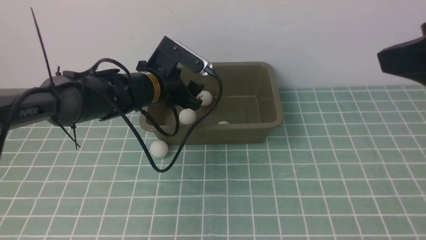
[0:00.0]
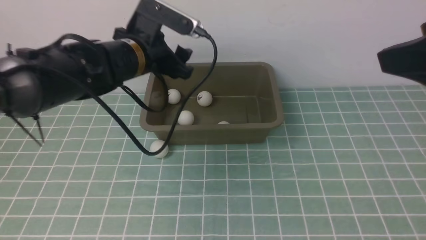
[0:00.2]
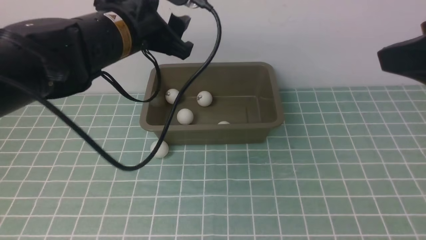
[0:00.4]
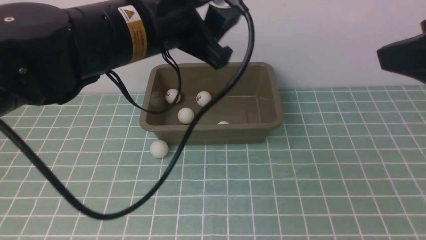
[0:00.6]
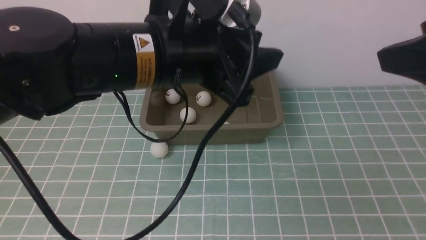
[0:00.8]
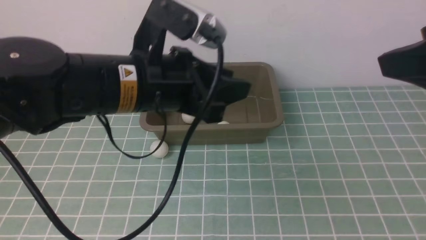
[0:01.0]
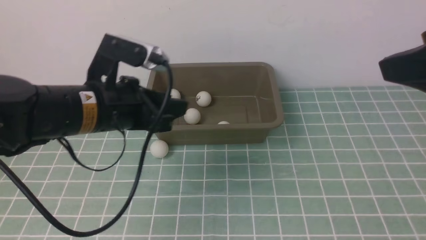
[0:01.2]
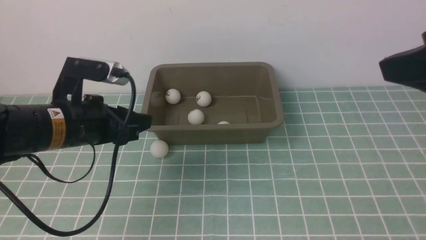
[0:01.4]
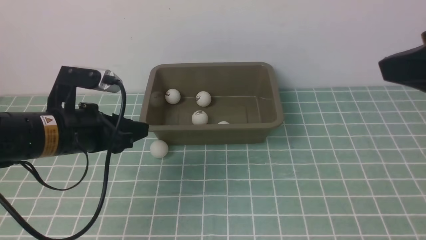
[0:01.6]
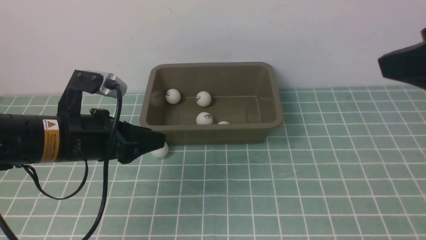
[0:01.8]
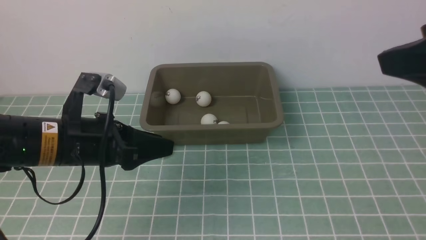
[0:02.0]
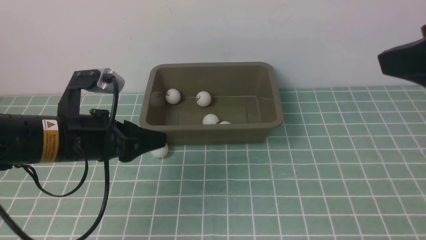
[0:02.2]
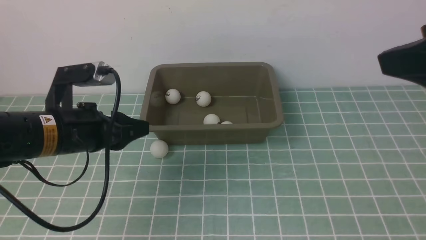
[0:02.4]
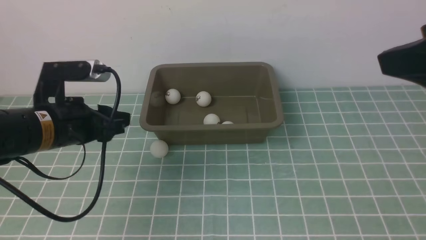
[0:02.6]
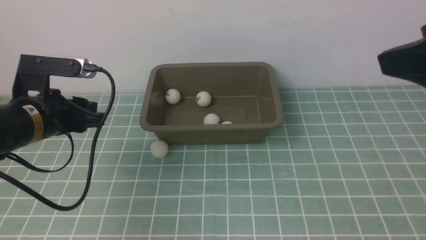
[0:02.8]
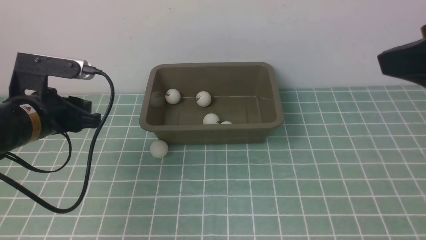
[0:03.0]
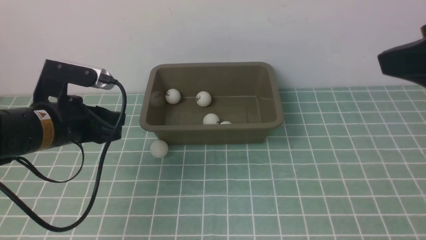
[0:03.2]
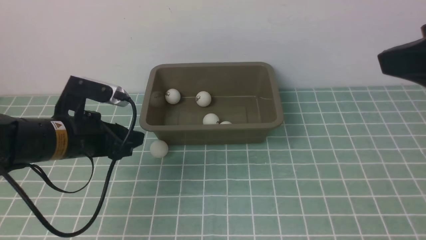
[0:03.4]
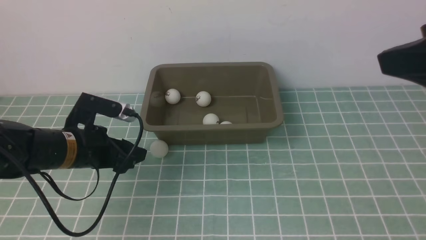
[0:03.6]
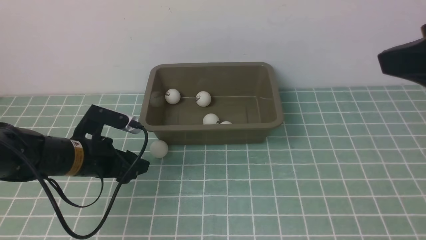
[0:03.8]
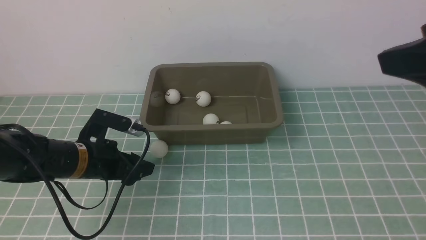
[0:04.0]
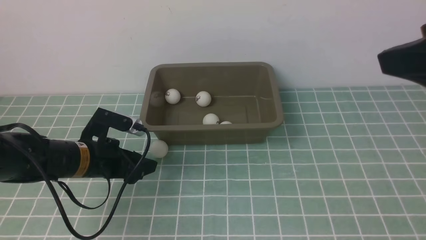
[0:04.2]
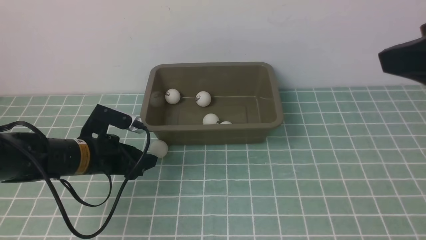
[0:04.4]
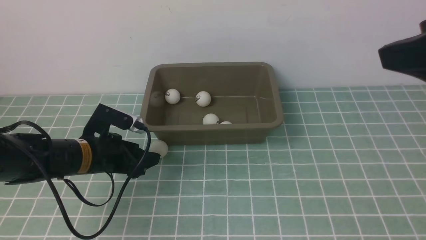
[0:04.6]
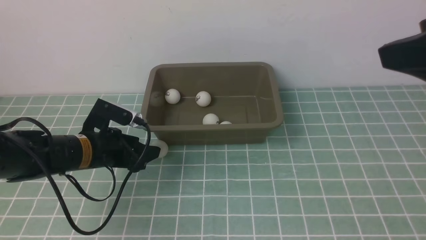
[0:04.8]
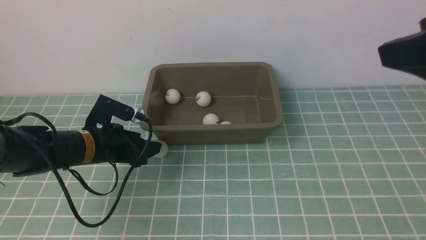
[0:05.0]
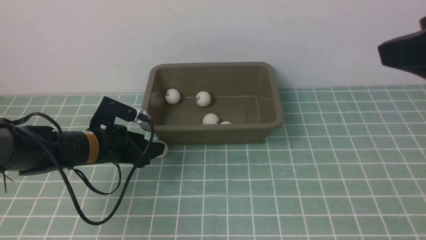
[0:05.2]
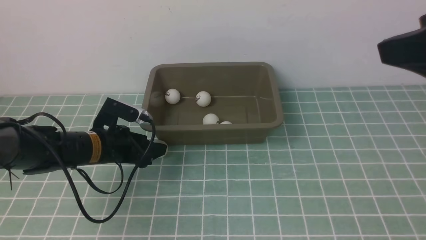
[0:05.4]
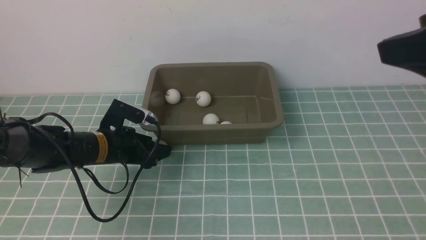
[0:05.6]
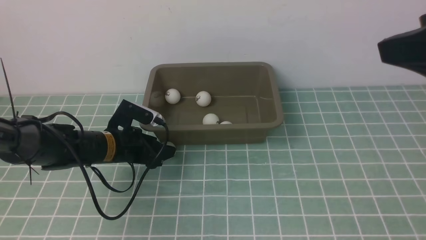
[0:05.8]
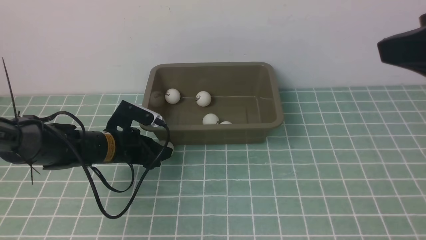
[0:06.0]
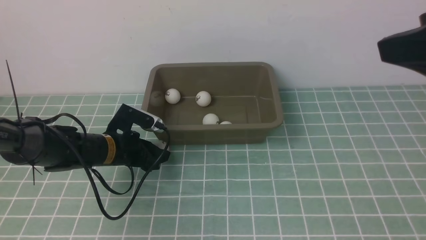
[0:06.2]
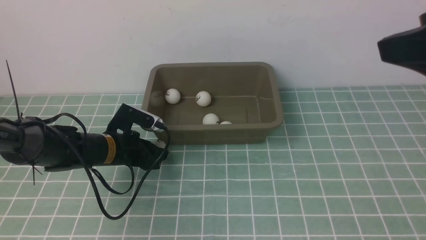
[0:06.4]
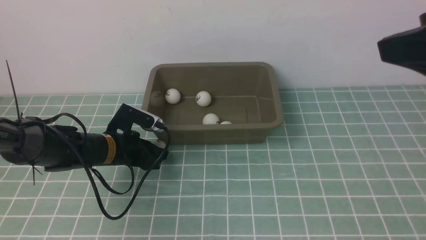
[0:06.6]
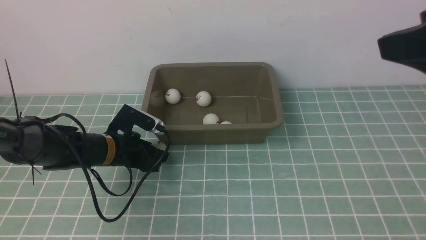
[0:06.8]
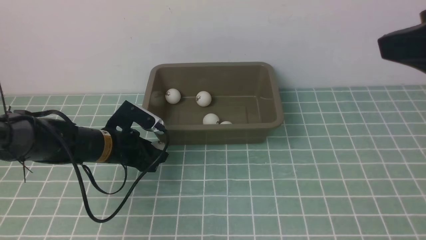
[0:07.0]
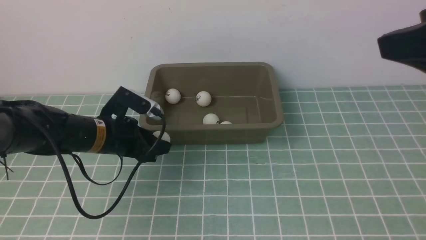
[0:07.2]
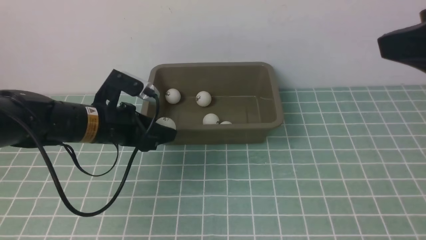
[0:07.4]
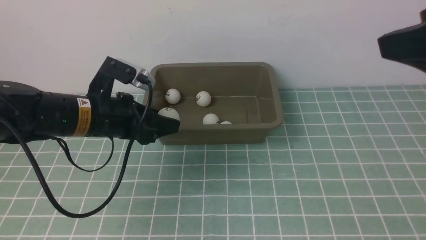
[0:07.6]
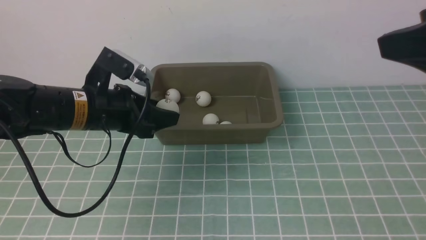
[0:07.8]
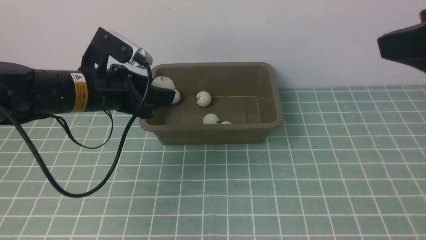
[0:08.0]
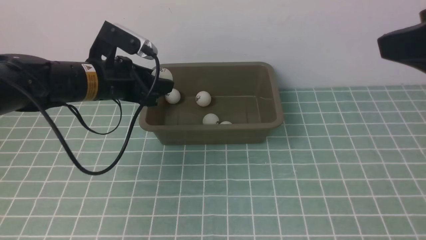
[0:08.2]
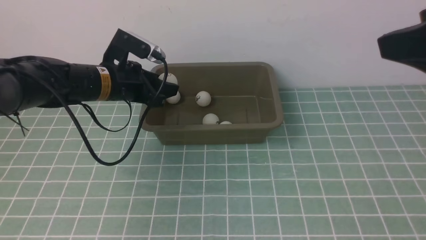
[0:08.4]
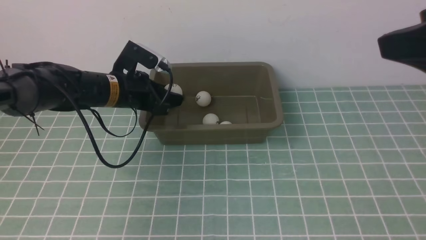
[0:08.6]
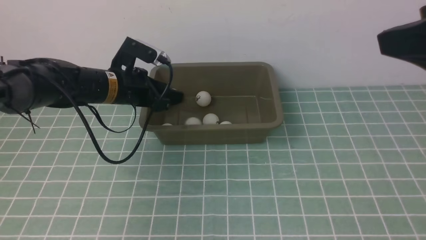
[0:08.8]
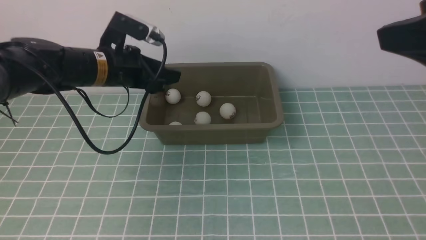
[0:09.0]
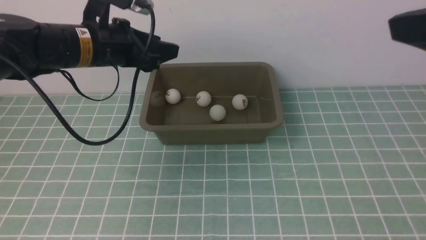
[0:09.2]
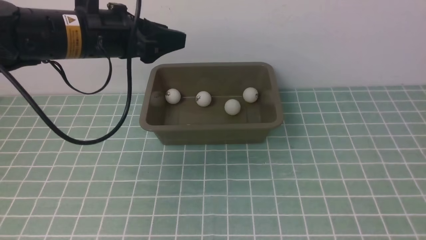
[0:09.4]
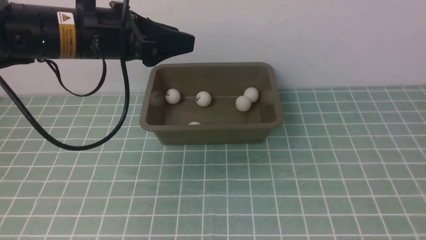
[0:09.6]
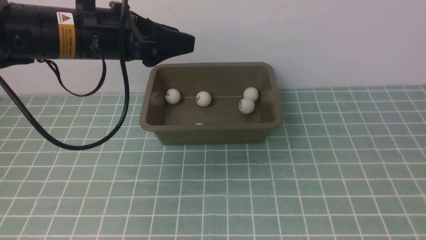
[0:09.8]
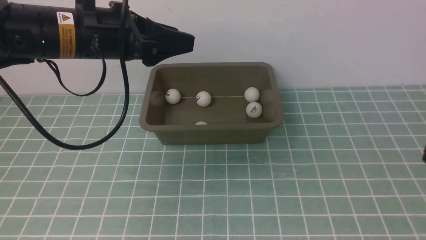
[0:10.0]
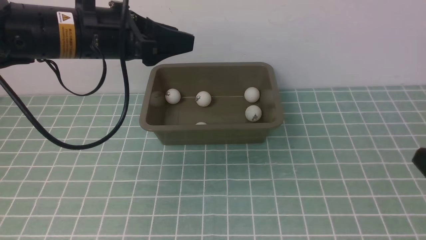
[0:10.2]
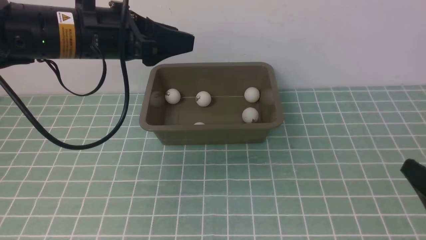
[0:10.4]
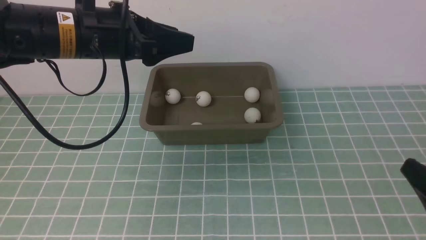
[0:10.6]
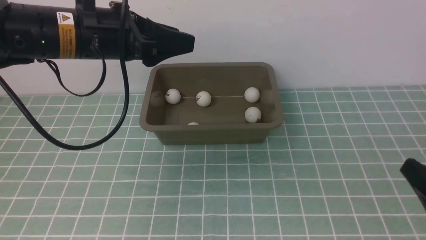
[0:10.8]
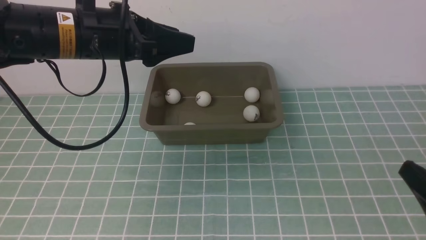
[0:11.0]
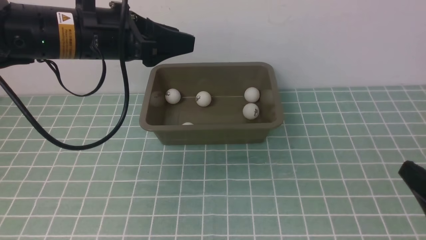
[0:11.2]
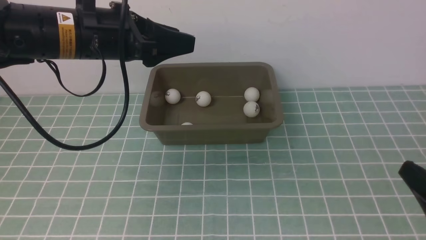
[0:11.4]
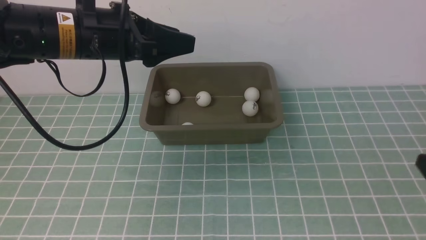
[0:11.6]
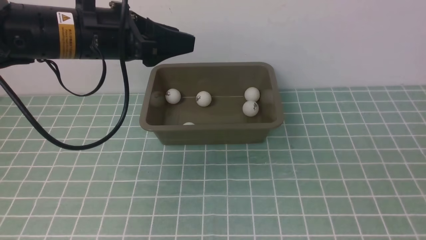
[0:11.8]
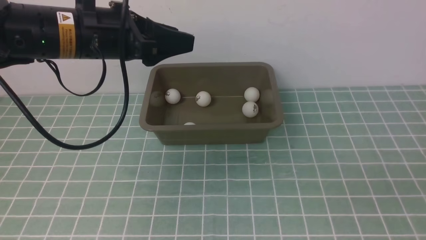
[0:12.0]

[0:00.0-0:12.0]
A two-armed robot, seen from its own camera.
Step, 0:00.2 to 0:07.0: use the left arm to clamp the table tennis ball closest to it.
Step, 0:07.4 to 0:09.0: use the left arm to put the table tennis ball into the box.
0:00.0 to 0:01.6: The left gripper travels backward and to the left by approximately 15 cm, and closes.
0:03.0 to 0:04.4: The left gripper goes about 10 cm downward, and opens its fingers.
0:04.4 to 0:06.0: The left gripper moves forward, roughly 5 cm.
0:06.0 to 0:07.6: The left gripper heads upward, covering roughly 15 cm, and closes.
0:07.6 to 0:09.0: The left gripper travels upward and forward by roughly 10 cm.
0:09.0 to 0:10.4: The left gripper shifts by approximately 5 cm, while the right gripper travels downward by about 20 cm.
0:10.4 to 0:12.0: The right gripper goes roughly 5 cm downward.

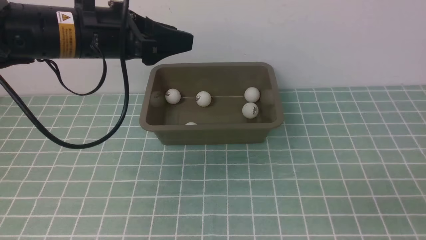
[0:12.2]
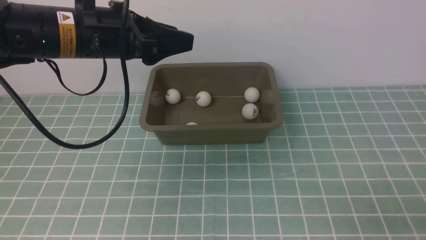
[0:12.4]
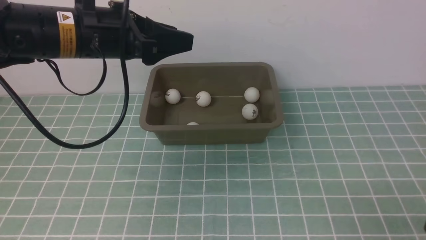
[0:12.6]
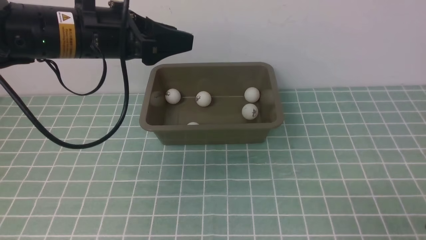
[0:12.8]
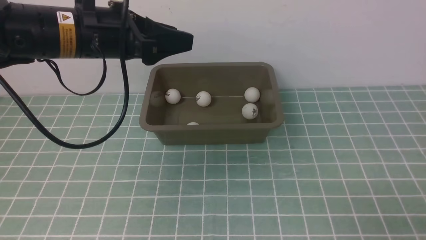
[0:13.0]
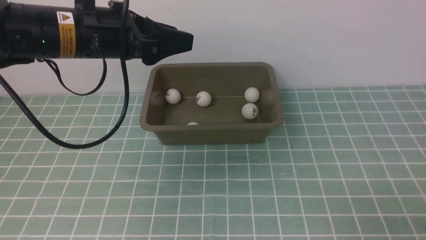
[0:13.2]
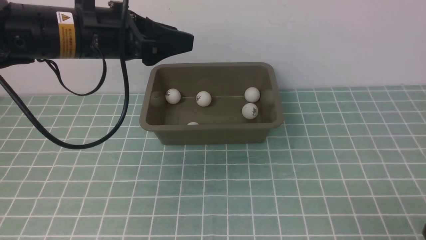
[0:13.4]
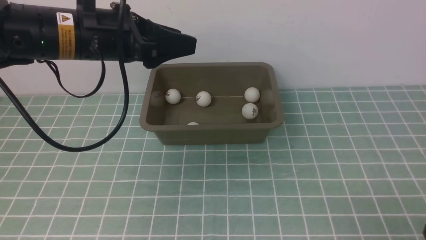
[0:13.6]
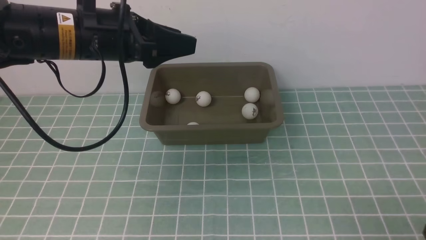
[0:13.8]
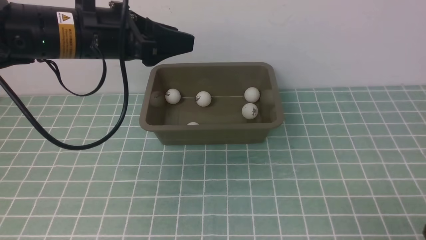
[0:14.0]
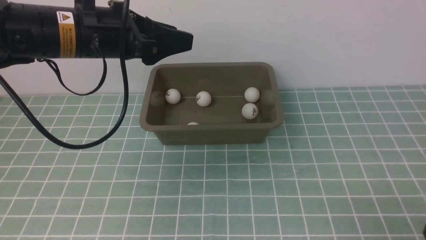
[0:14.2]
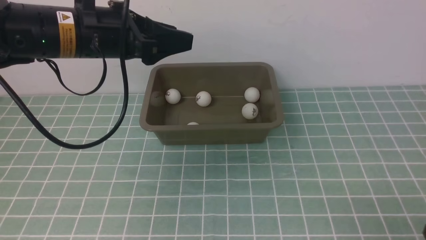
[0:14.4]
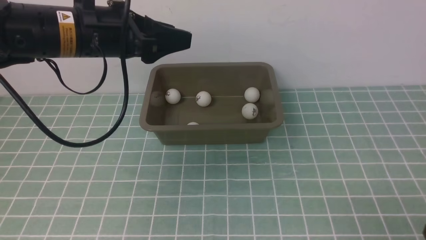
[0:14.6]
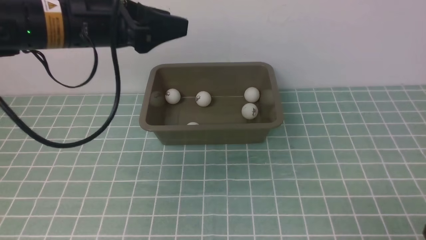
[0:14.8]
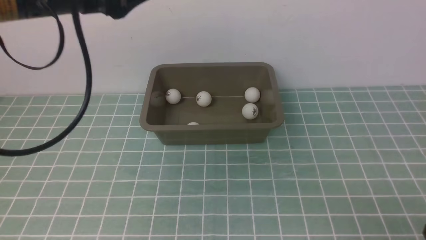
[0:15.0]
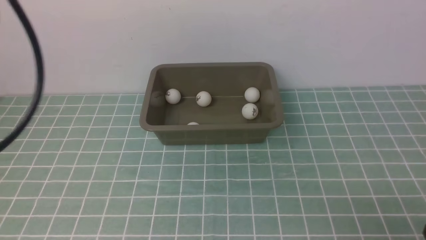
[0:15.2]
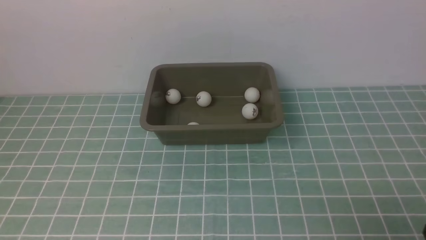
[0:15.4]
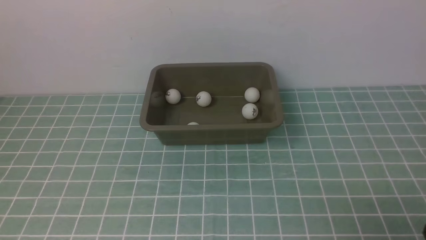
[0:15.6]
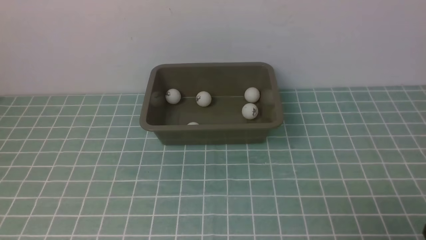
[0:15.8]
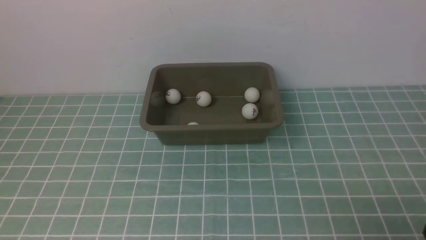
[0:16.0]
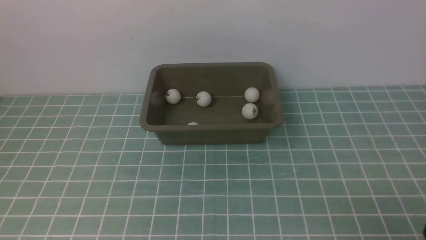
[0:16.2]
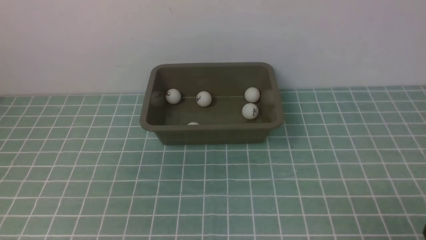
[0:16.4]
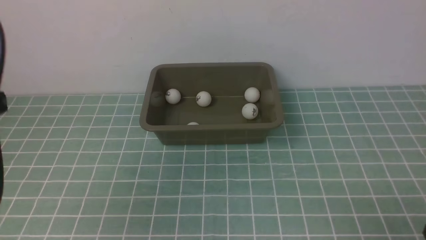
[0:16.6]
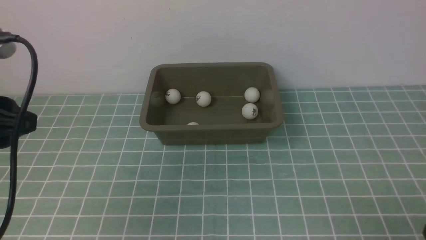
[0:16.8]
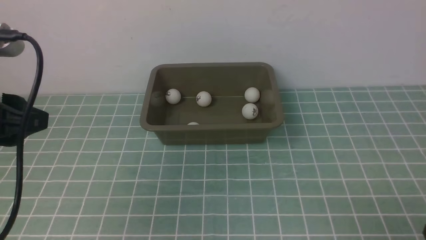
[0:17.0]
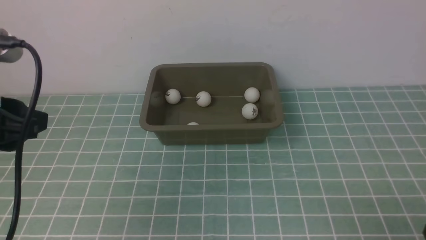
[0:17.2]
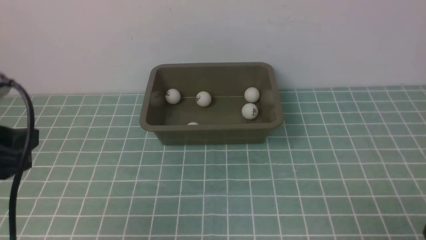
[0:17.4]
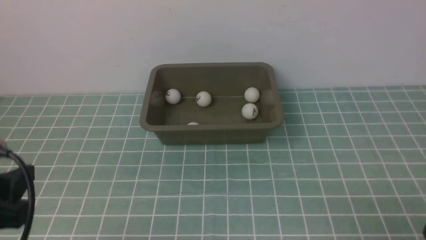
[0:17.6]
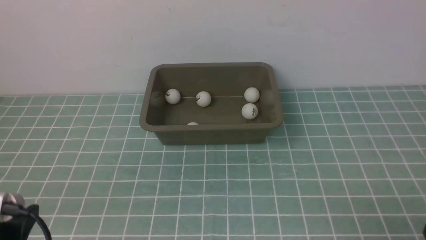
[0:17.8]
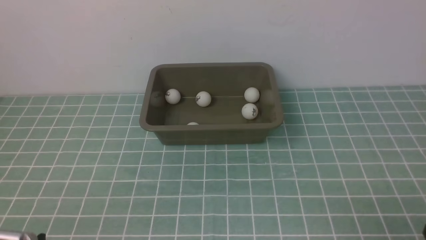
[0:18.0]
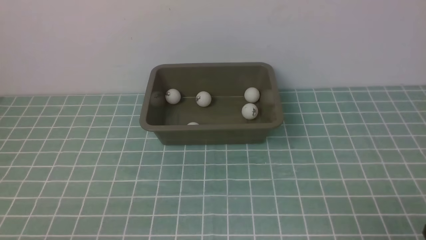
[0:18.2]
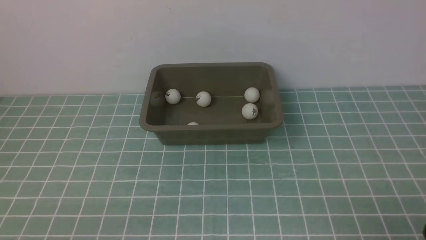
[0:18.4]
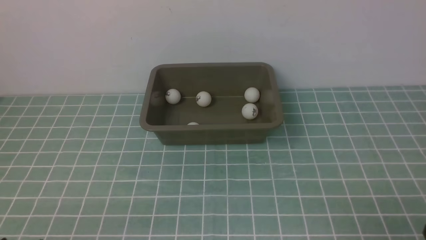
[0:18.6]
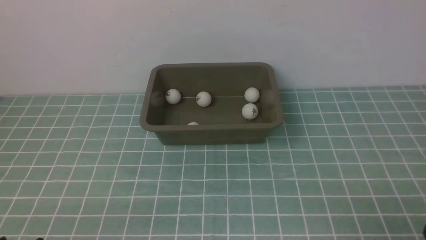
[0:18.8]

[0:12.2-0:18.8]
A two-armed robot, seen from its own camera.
0:12.2 to 0:13.8: The grippers move only a little.
0:13.8 to 0:15.4: The left gripper travels backward and upward by some 25 cm.
0:15.4 to 0:17.2: The left gripper shifts some 15 cm downward.
0:17.2 to 0:18.8: The left gripper goes roughly 20 cm downward and backward.
